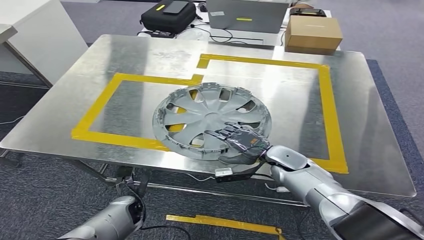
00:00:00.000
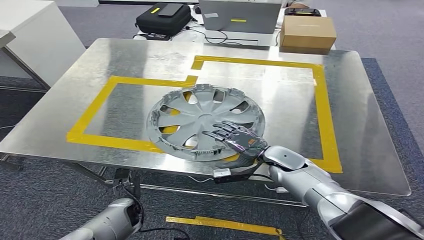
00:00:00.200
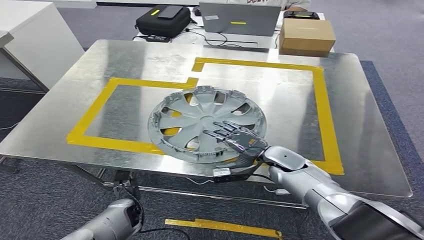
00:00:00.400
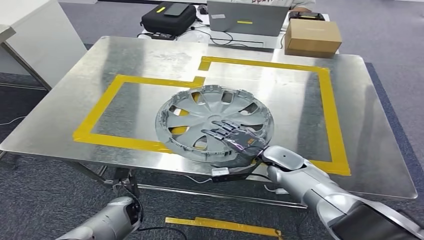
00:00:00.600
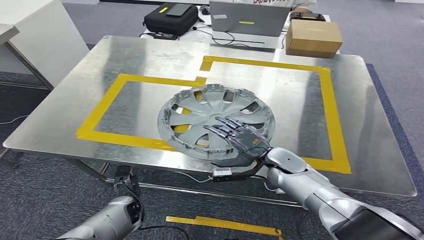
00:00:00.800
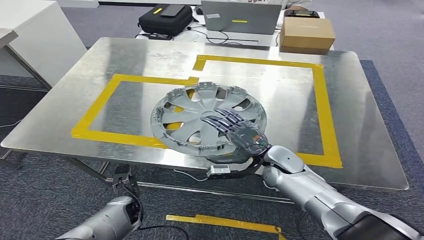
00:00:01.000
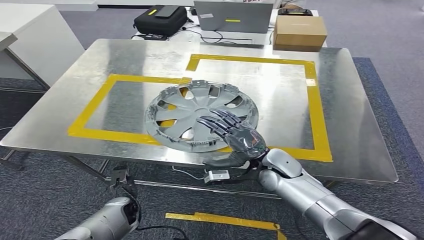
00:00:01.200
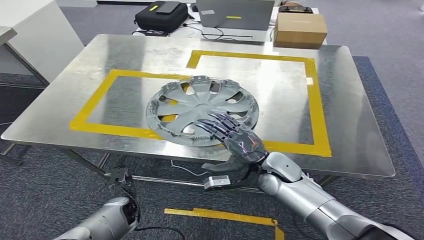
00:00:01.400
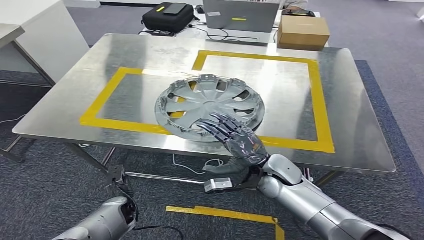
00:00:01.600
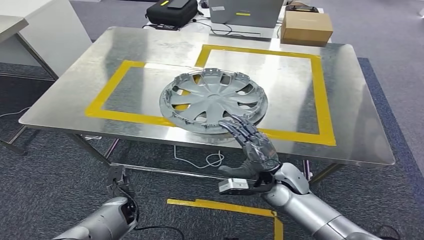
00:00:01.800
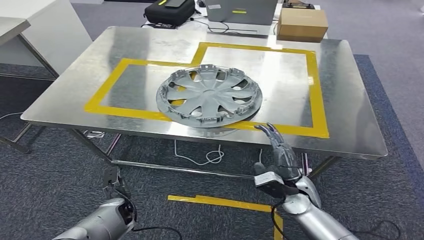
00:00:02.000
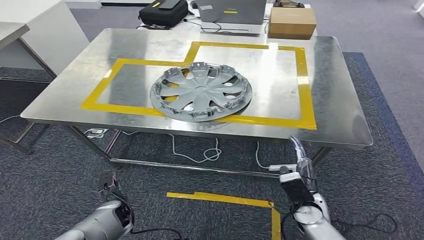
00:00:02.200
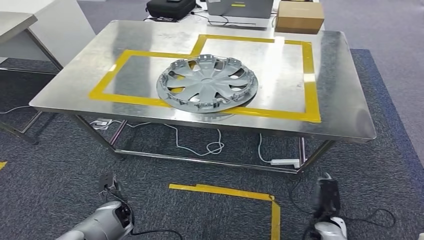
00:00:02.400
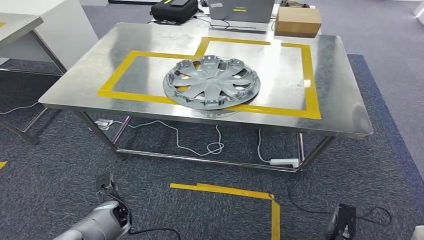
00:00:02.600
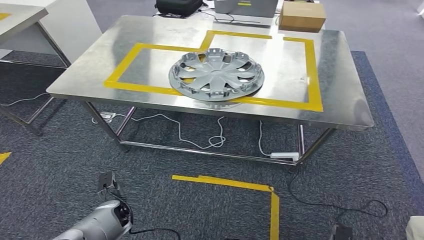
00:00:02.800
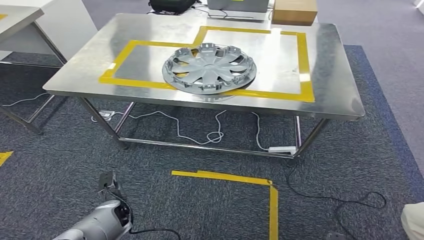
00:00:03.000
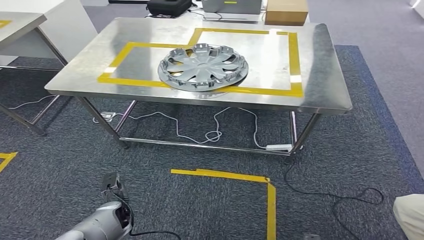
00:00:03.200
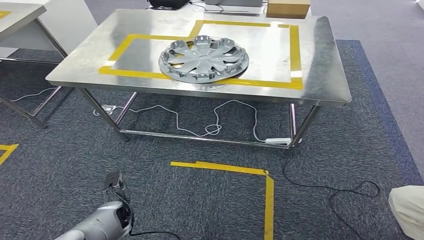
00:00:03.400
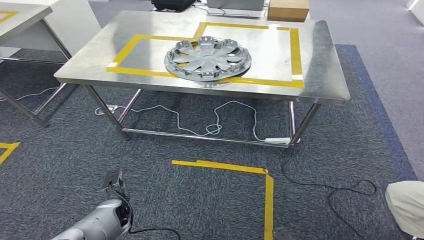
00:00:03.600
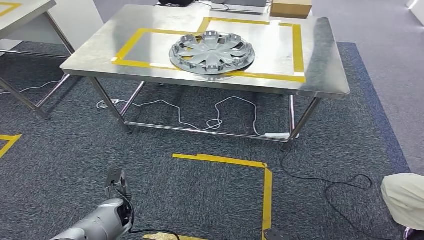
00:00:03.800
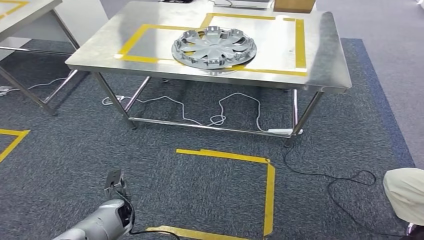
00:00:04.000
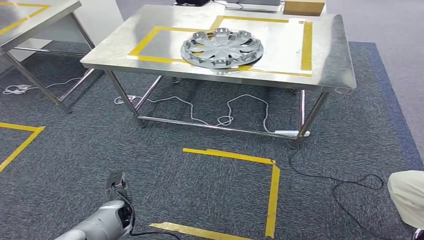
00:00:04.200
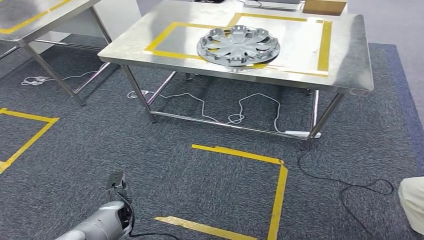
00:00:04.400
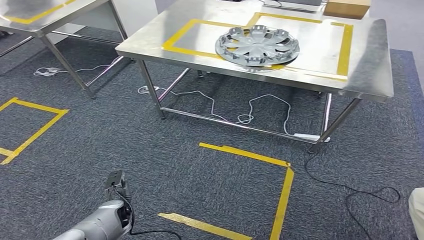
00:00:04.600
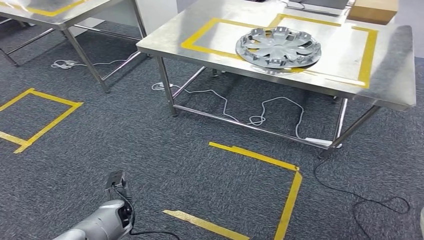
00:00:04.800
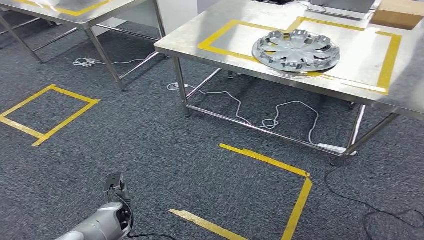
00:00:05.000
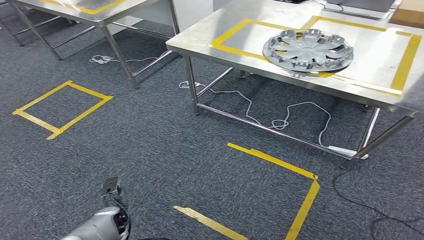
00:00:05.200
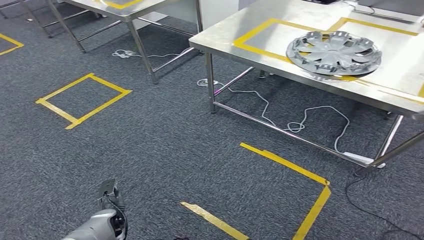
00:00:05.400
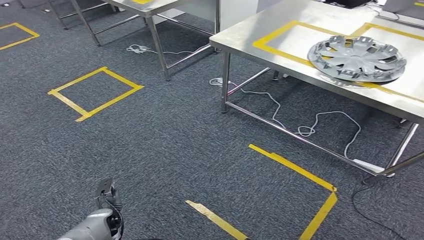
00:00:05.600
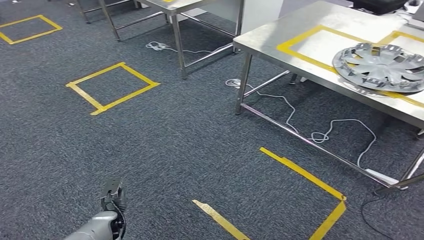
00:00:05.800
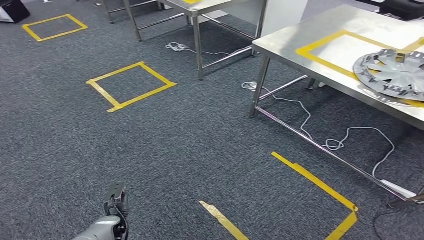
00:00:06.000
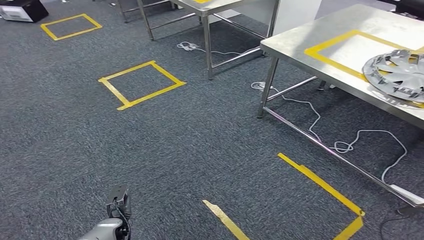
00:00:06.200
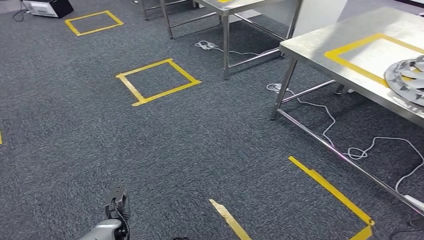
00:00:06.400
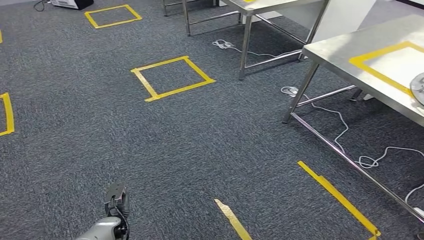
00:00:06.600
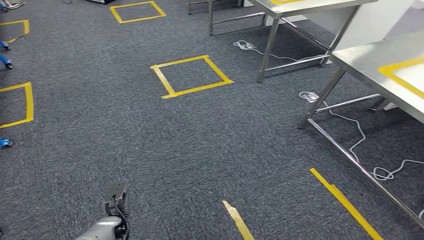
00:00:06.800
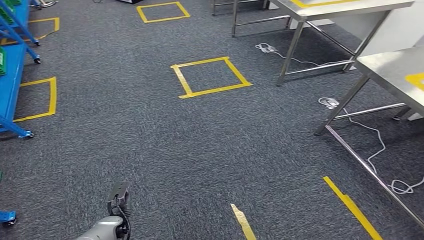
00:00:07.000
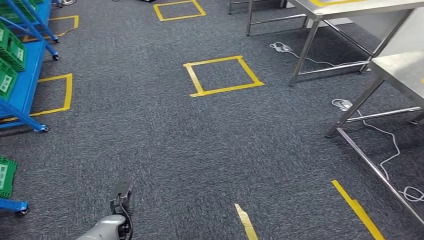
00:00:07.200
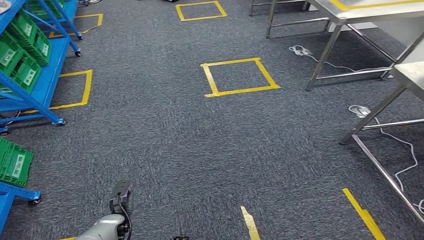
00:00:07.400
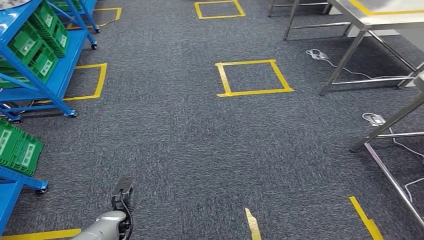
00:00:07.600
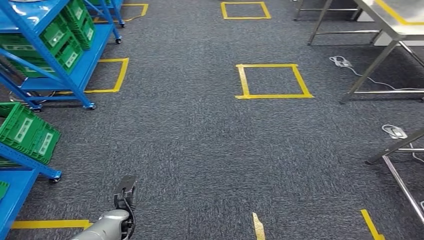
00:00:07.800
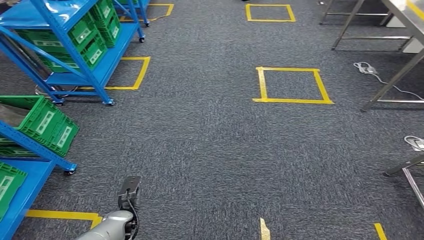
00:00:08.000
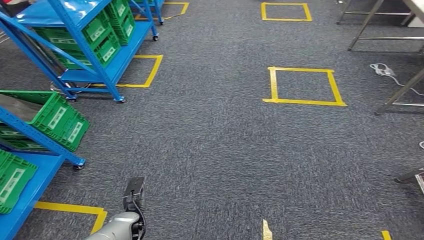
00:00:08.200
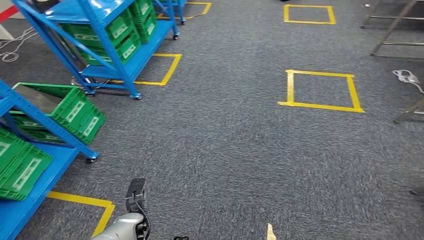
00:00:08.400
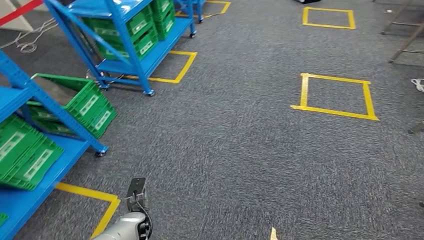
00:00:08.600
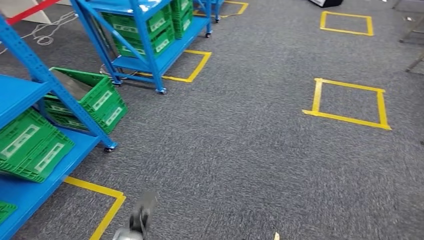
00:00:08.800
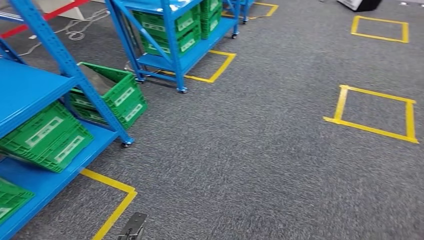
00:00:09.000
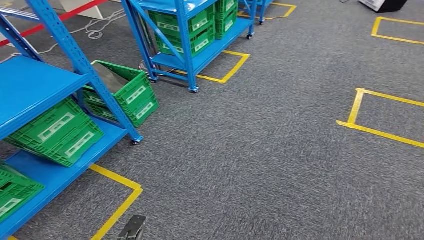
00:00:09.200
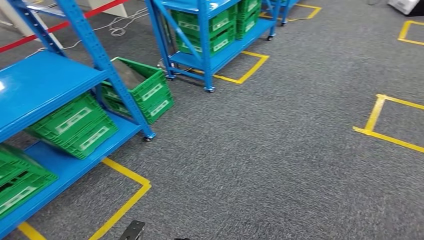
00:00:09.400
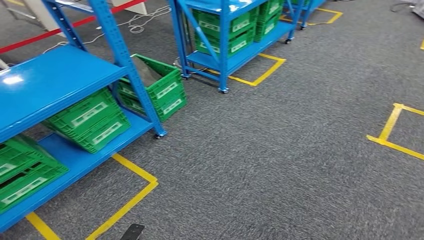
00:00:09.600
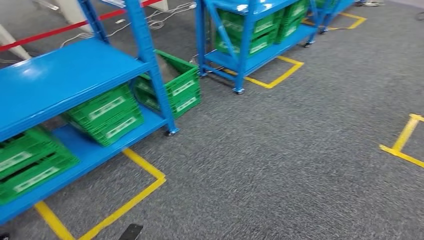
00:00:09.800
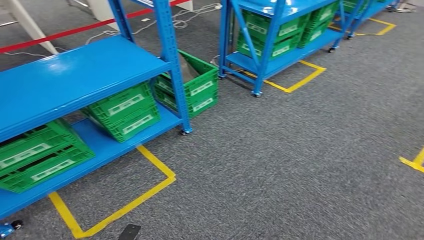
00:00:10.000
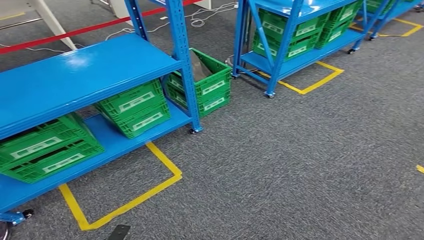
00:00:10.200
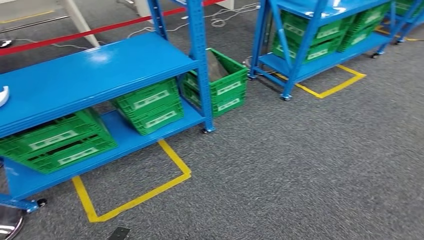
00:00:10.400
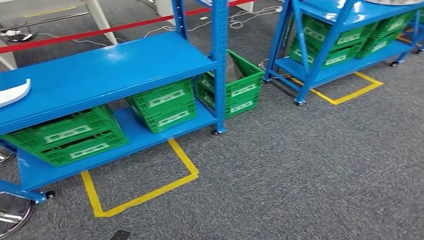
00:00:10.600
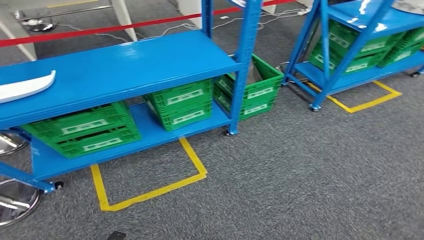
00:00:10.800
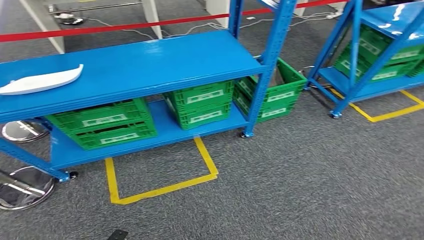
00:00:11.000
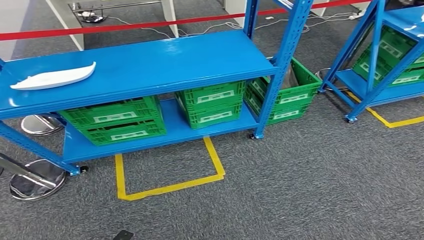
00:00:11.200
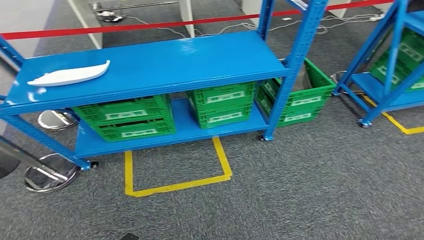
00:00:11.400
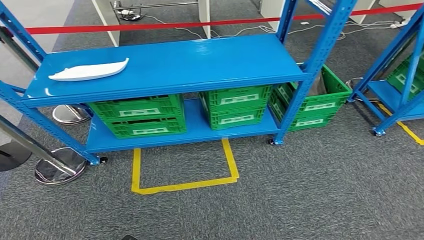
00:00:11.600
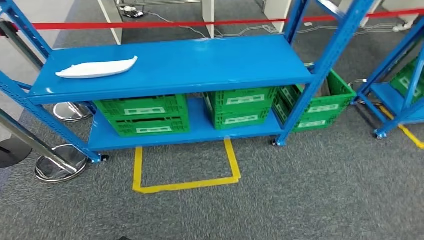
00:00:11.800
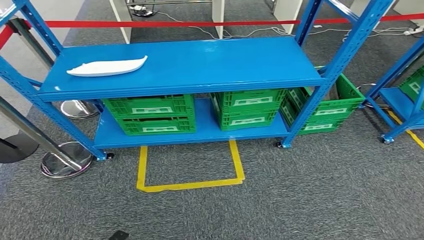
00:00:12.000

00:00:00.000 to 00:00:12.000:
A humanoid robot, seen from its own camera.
Step, 00:00:00.000 to 00:00:03.600: Insert the small component into the corresponding slot on the workbench.
Step, 00:00:03.800 to 00:00:12.000: Return to the initial position at the workbench.
